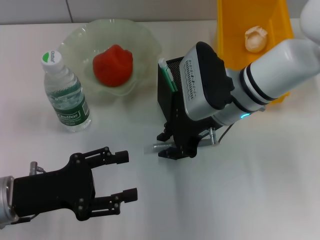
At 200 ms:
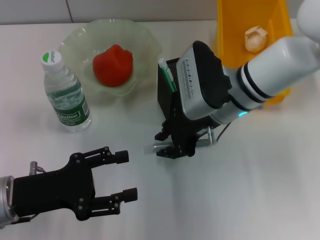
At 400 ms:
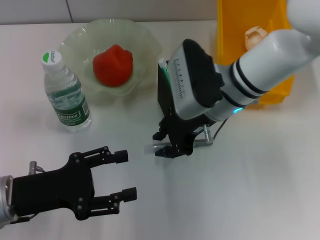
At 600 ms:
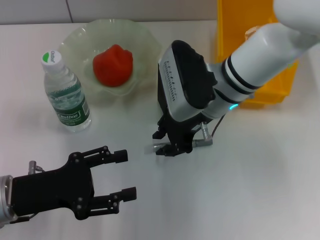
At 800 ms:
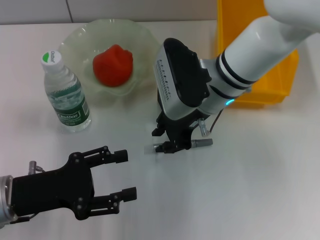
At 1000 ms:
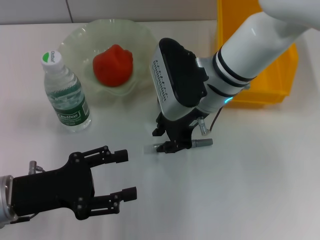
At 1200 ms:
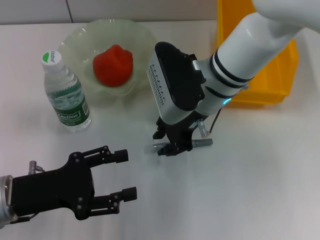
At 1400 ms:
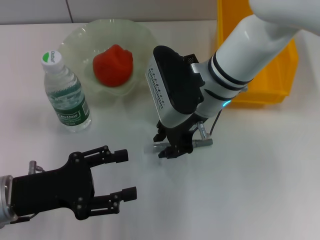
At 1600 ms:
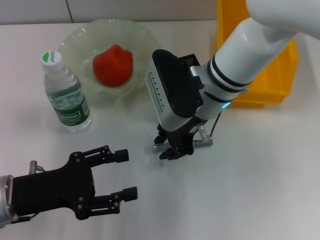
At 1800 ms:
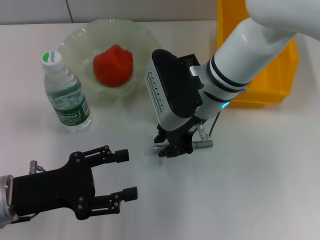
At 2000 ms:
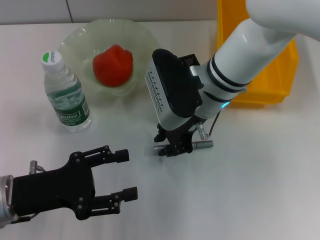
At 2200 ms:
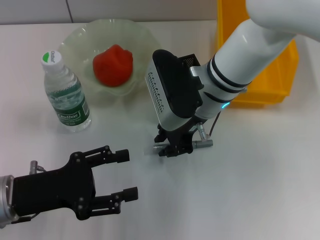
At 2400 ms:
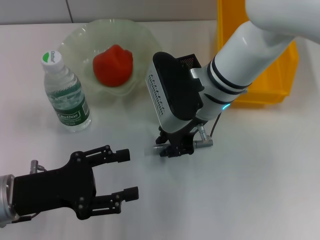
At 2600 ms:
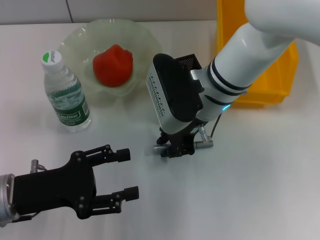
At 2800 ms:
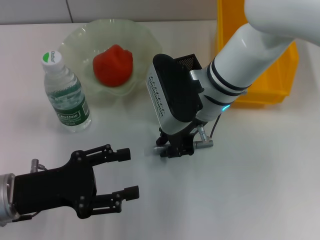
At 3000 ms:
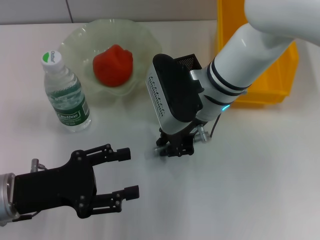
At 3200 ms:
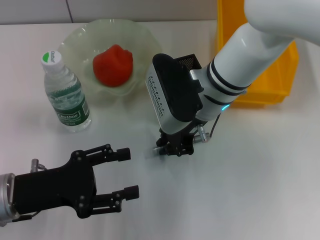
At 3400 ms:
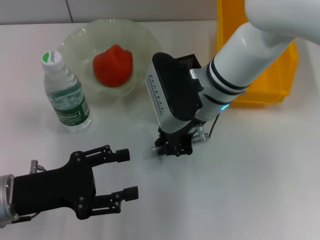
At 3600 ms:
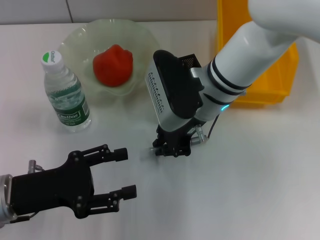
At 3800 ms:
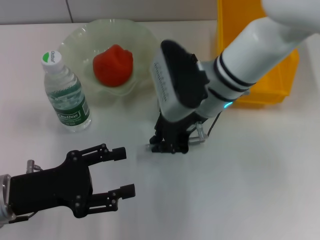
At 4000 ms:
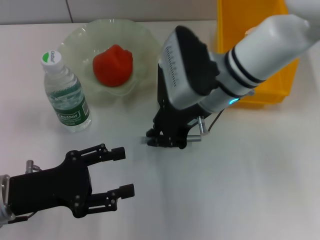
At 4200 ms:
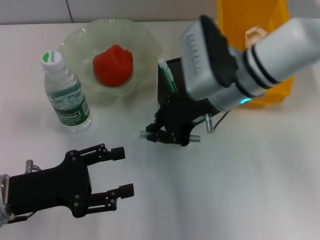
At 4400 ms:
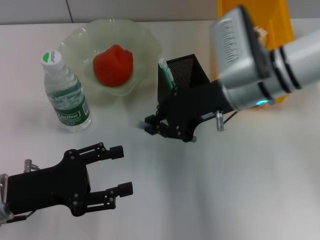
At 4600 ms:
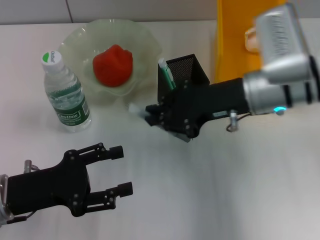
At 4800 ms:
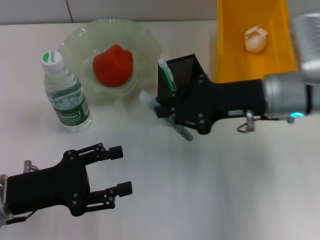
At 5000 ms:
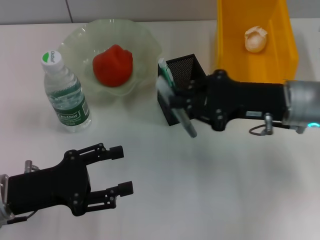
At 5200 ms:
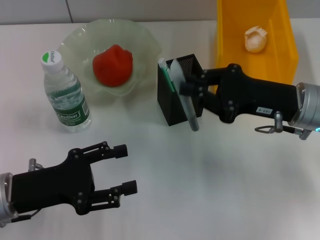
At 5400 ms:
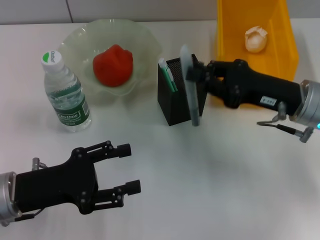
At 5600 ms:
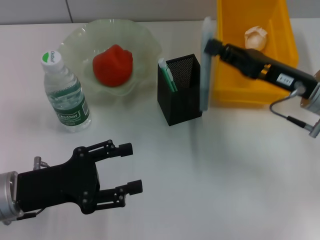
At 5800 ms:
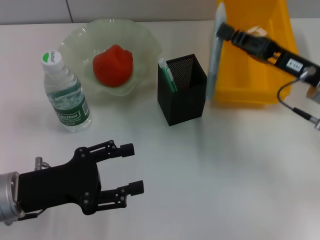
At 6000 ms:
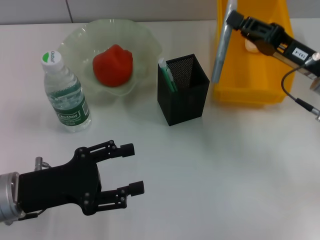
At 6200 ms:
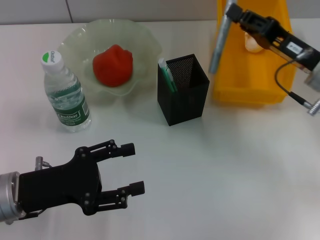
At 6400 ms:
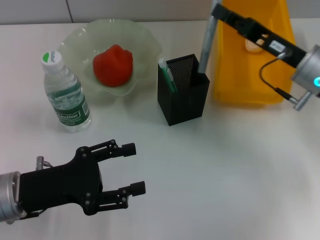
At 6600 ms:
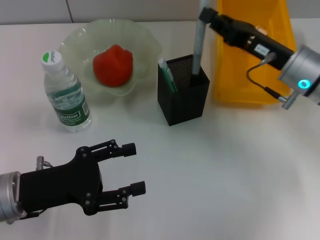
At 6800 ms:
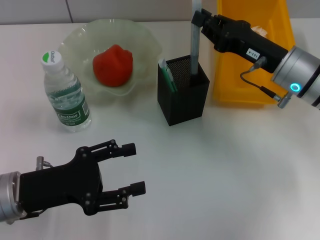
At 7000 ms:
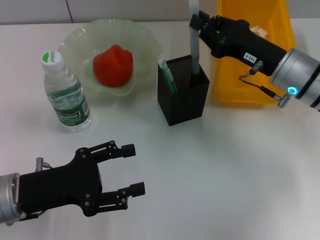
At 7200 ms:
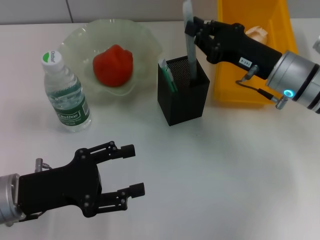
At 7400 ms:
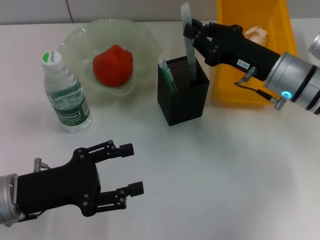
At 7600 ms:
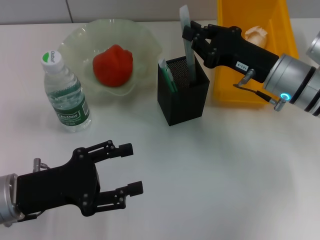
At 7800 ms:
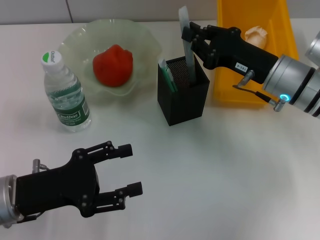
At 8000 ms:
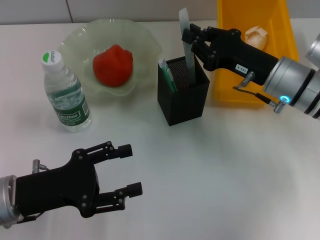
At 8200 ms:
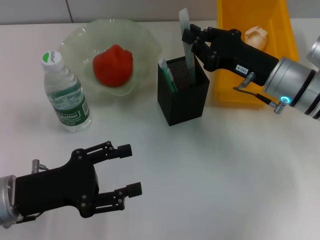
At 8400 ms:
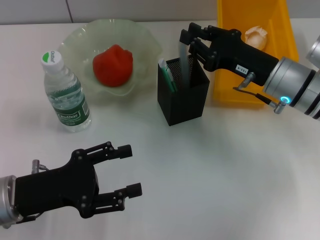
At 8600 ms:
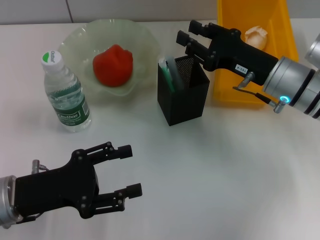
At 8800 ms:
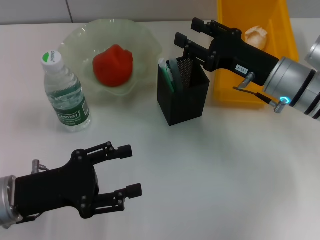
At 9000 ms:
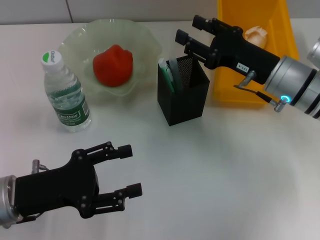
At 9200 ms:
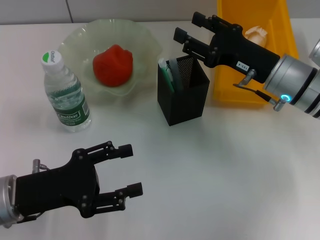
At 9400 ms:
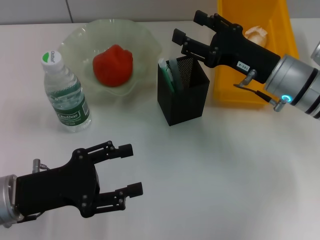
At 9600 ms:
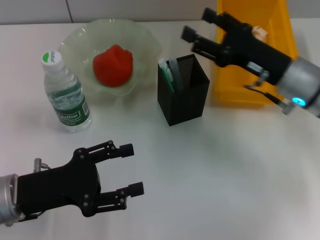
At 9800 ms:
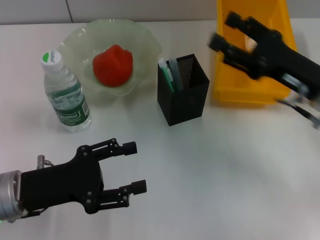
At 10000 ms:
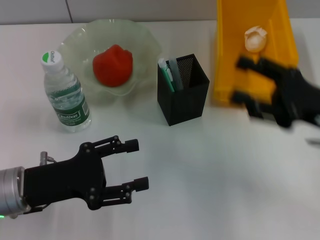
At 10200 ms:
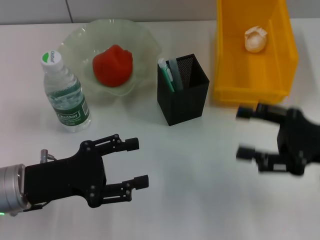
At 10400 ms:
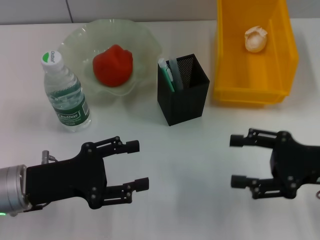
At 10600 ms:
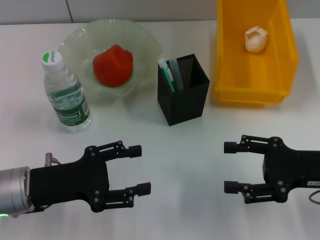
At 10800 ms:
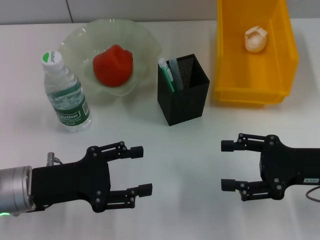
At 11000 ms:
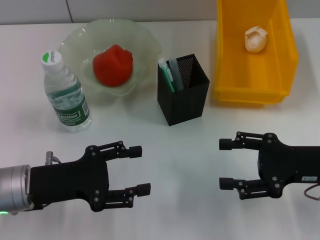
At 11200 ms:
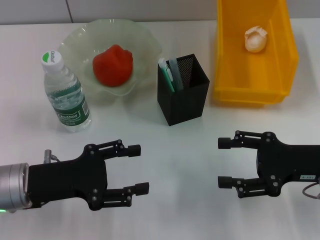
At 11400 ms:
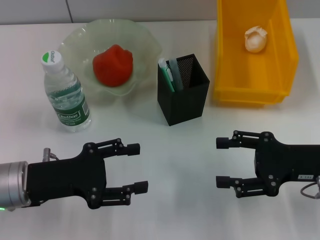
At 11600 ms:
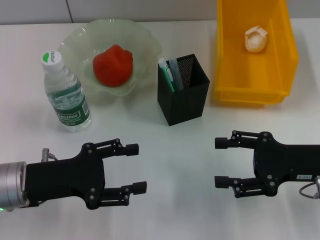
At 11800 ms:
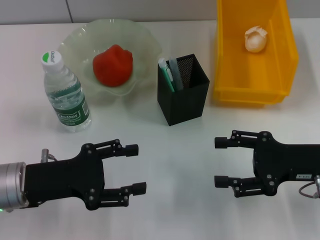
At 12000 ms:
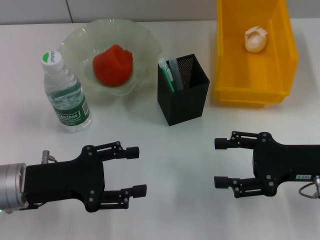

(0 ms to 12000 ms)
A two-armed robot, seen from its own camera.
Step, 0 ms - 3400 ms: Grab the gray glue with the right hand.
Step, 3600 ms - 8600 ms: Place the gray glue into the pen holder with the right hand.
0 ms - 1600 ms: The grippers make only small movements.
1600 ms - 3000 ms: Neither gripper changes place.
3000 ms - 4400 ms: The right gripper moves to the right, approximately 5 cm.
4400 ms - 6000 ms: The right gripper shifts some 15 cm to the right.
6000 ms - 7600 ms: The right gripper goes roughly 5 cm to the left.
7600 ms - 9000 ms: The right gripper opens up.
9000 ms - 10400 ms: The right gripper moves backward and to the right, roughly 15 cm.
10400 ms - 12000 ms: The grippers make only small movements.

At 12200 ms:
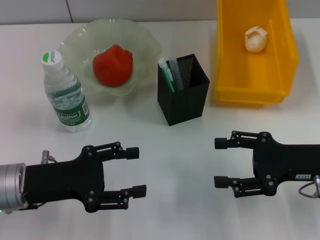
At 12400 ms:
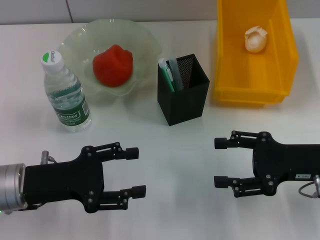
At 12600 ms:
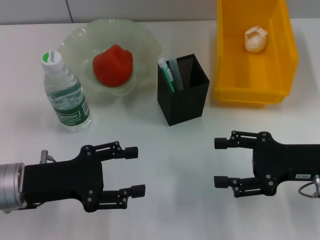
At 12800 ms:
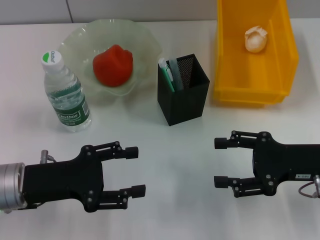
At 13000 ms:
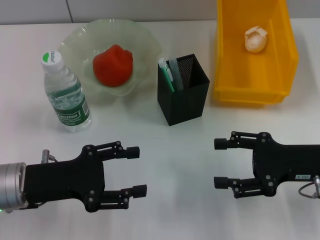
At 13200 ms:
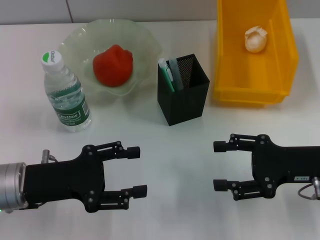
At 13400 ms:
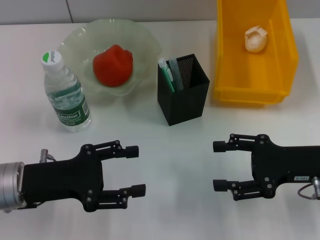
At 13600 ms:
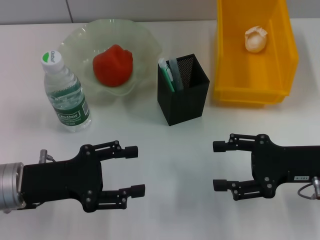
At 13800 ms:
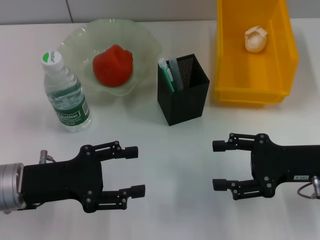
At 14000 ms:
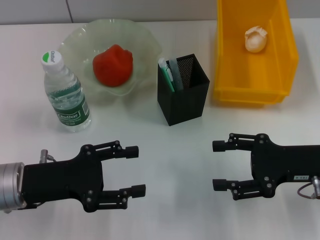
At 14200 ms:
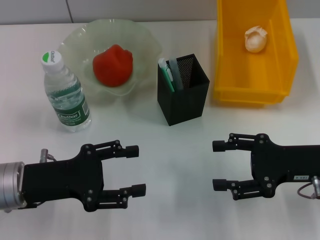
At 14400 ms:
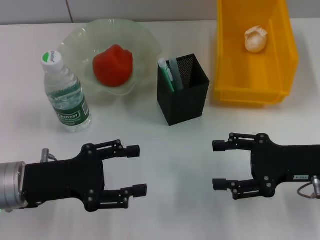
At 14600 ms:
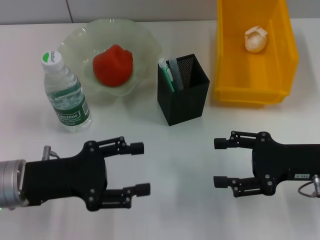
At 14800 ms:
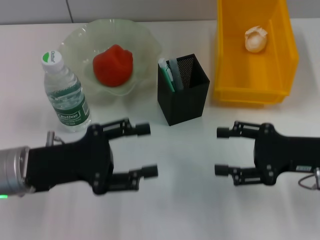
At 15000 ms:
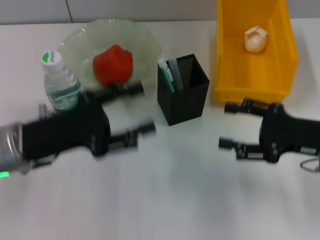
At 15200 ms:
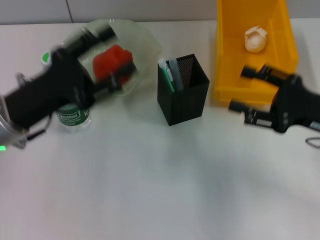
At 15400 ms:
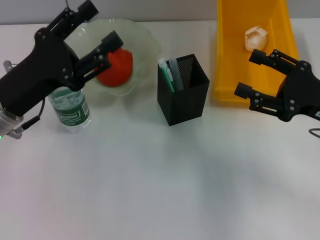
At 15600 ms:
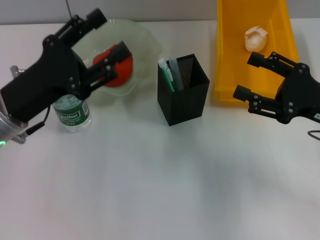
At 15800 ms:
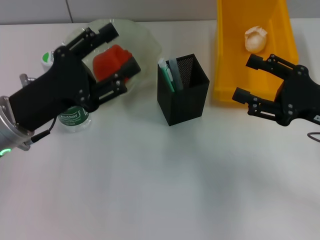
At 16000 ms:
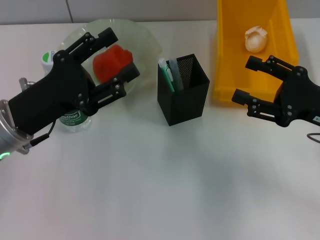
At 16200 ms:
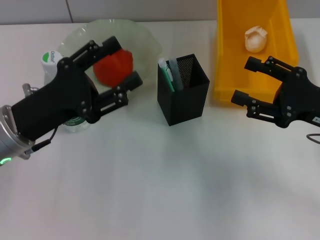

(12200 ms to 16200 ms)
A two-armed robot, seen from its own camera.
12200 ms - 13600 ms: Both grippers stay put.
13600 ms - 14800 ms: The grippers move only a little.

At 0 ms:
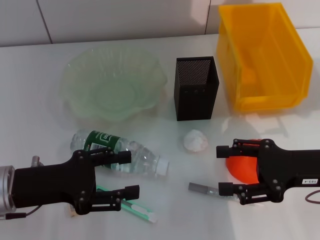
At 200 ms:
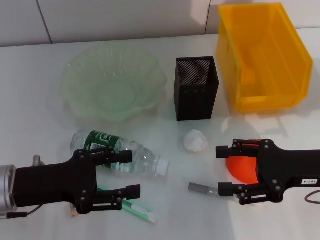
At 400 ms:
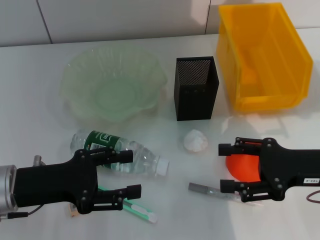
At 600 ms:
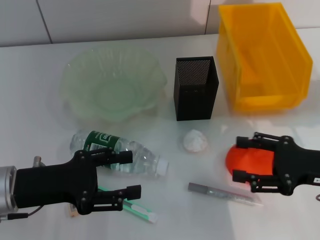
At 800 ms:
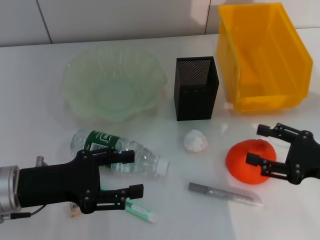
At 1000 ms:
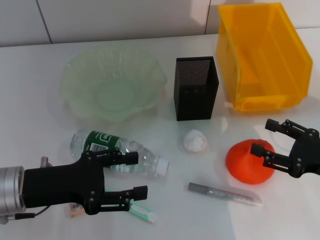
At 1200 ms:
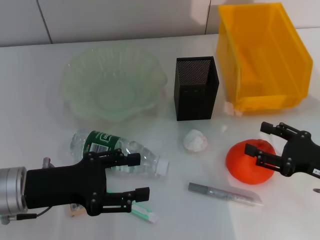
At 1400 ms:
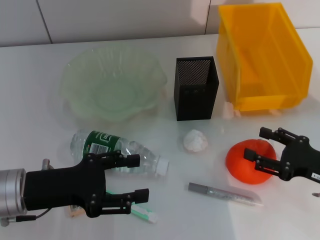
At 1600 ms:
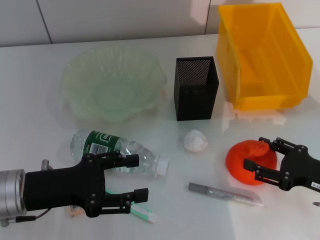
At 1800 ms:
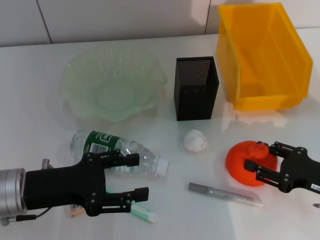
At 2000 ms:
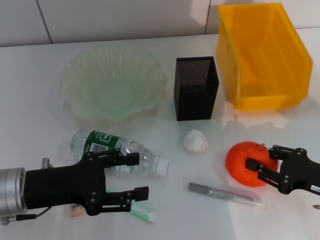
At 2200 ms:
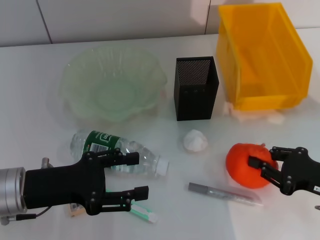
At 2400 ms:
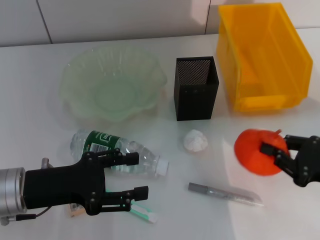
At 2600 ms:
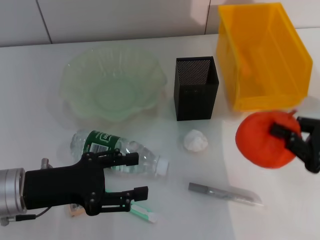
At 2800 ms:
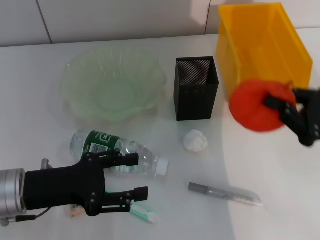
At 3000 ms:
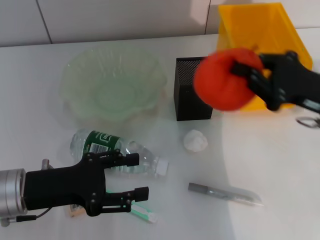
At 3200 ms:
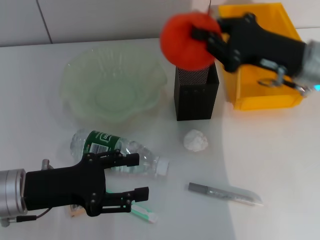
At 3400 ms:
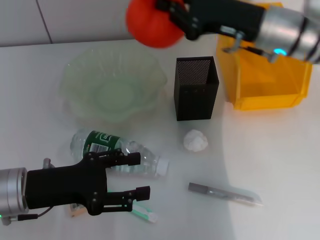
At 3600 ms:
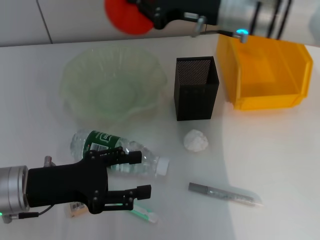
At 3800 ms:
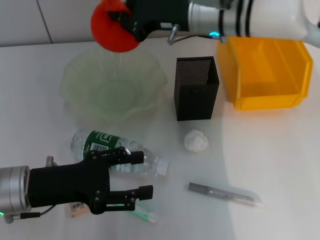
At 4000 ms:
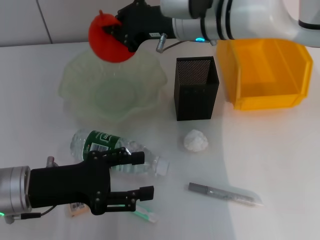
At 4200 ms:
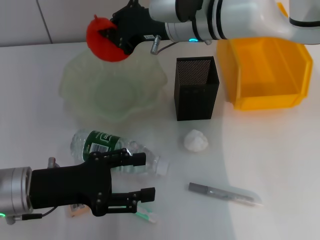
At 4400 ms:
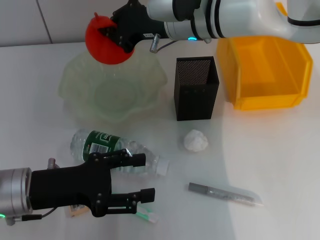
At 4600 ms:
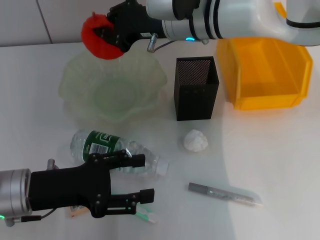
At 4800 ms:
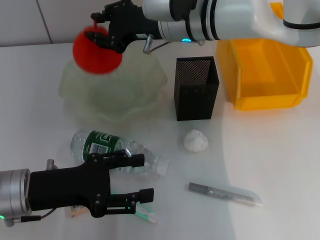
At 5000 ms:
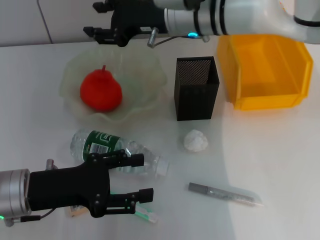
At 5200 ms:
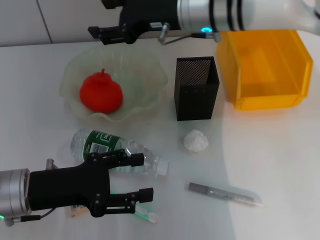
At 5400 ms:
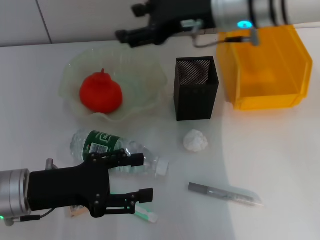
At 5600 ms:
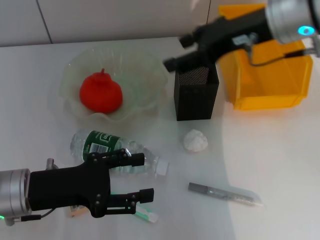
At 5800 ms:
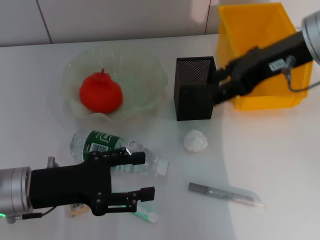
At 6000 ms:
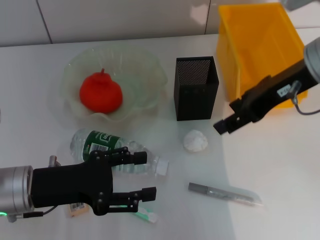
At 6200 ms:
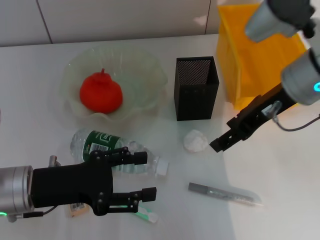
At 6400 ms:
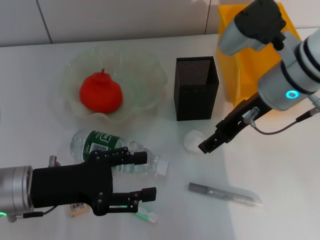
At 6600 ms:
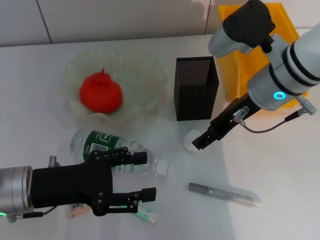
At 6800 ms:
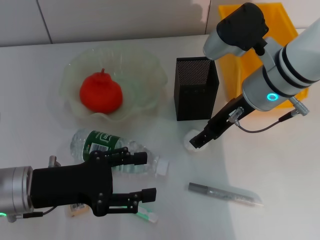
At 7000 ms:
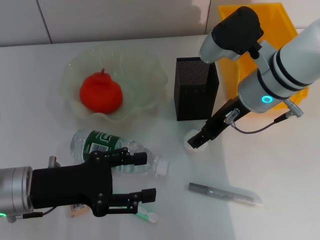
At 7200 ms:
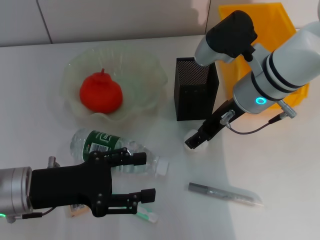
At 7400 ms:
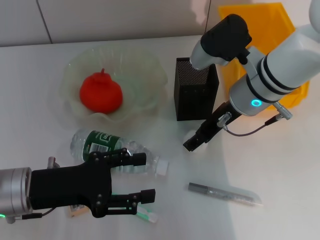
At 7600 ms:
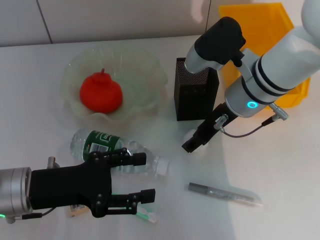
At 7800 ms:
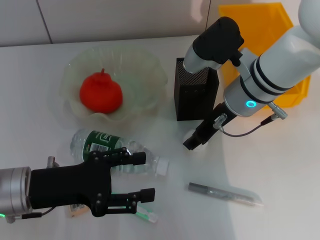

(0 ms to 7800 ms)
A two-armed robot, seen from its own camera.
Step, 0 ms - 1800 ms: Grab the orange with the right hand.
Step, 2000 ms - 5000 ms: Place the orange into the fruit bowl with the right hand.
0 ms - 1600 ms: The right gripper goes approximately 5 cm downward.
1600 ms - 3200 ms: The right gripper shifts roughly 20 cm forward, upward and to the left, and closes up.
3200 ms - 4600 ms: The right gripper goes approximately 20 cm to the left and forward.
4600 ms - 6200 ms: The right gripper is displaced backward and to the right by some 15 cm, and opens up.
6200 ms - 7800 ms: The right gripper moves downward, about 5 cm.
